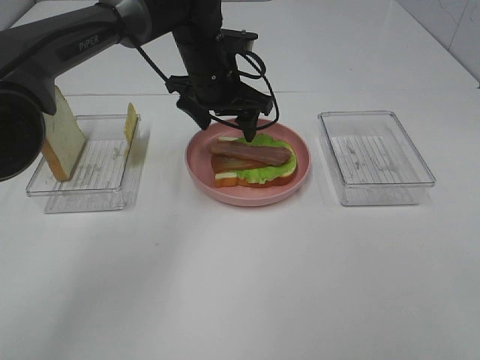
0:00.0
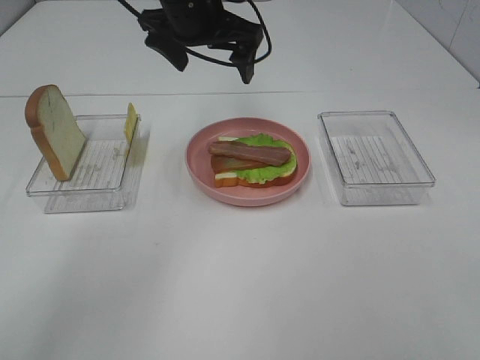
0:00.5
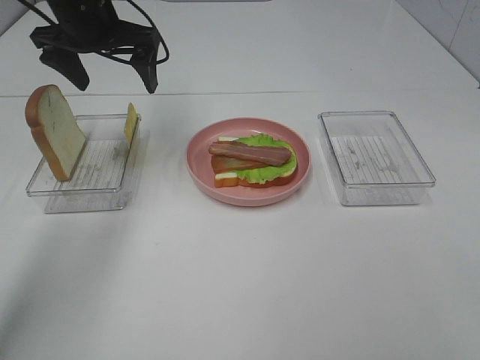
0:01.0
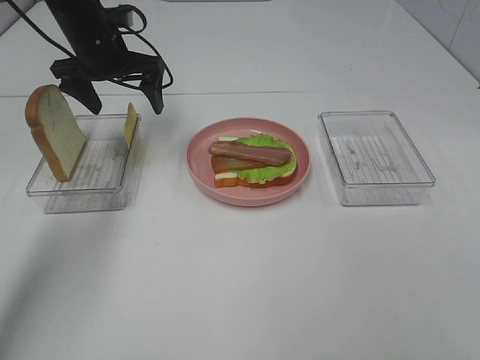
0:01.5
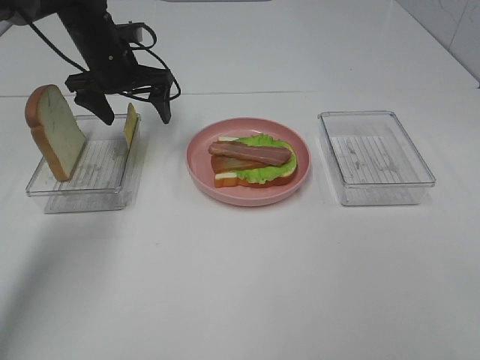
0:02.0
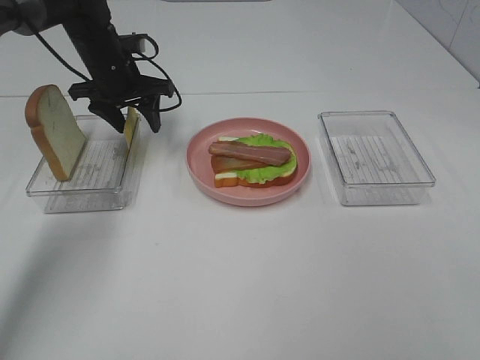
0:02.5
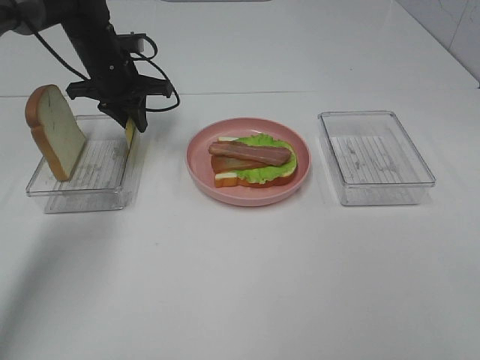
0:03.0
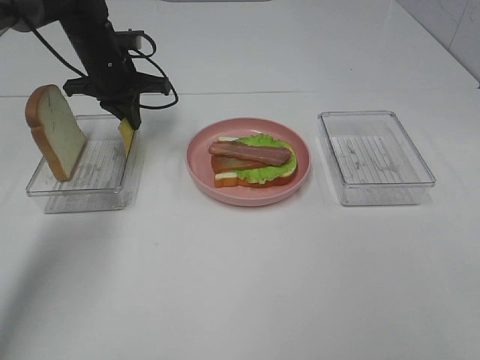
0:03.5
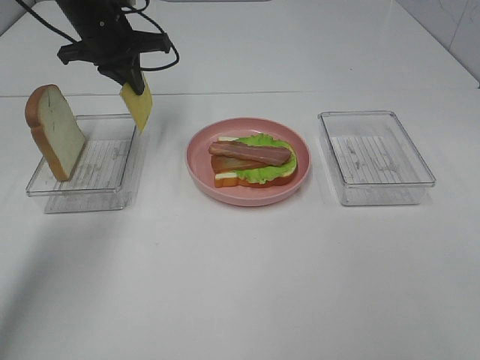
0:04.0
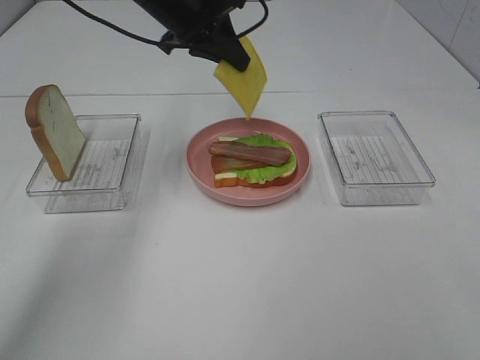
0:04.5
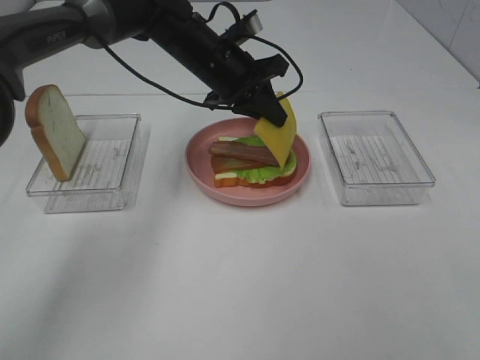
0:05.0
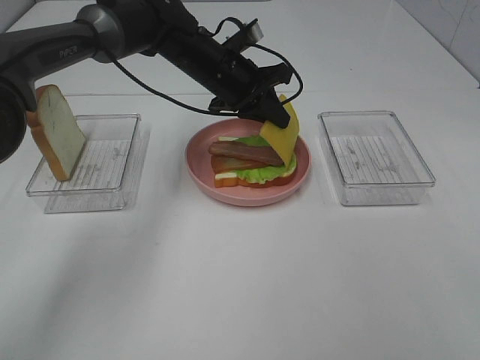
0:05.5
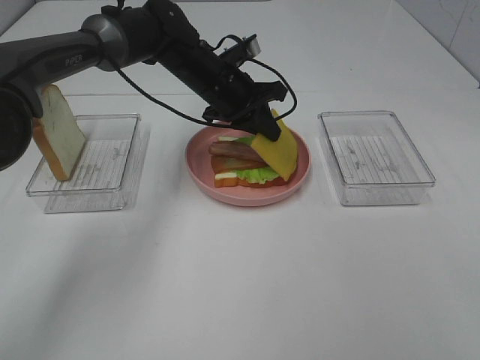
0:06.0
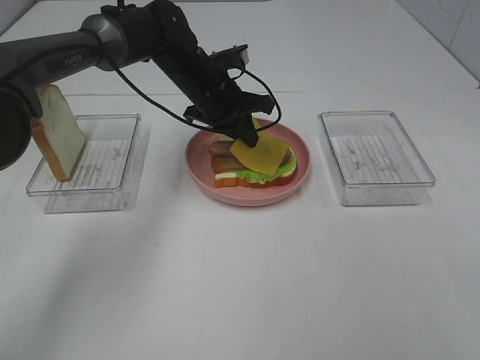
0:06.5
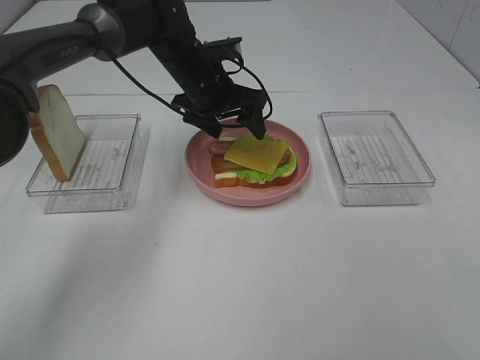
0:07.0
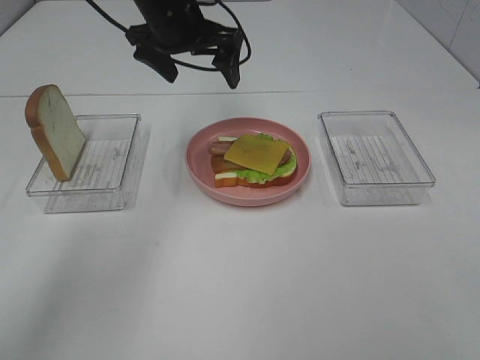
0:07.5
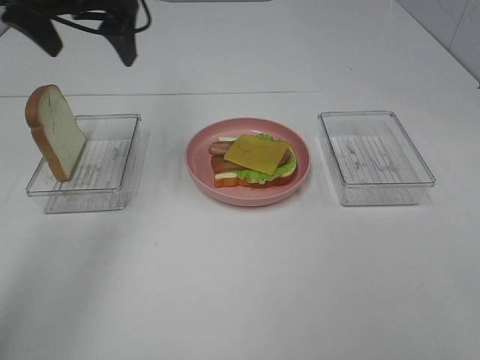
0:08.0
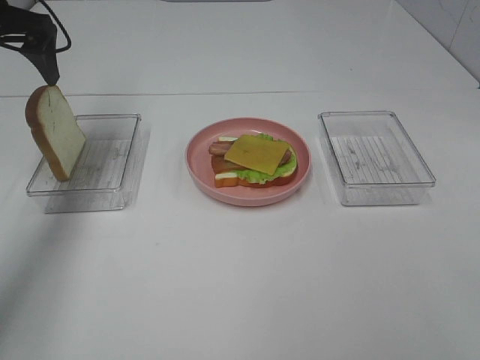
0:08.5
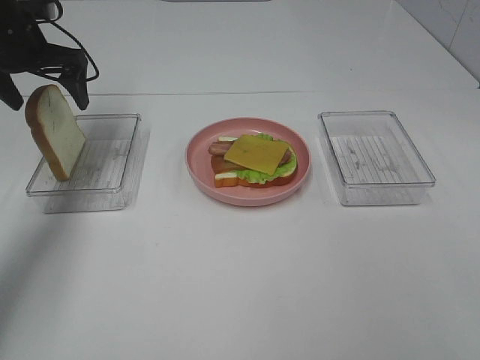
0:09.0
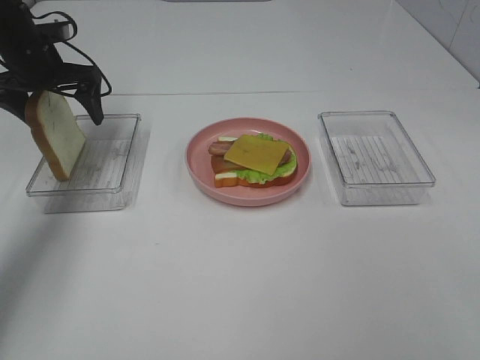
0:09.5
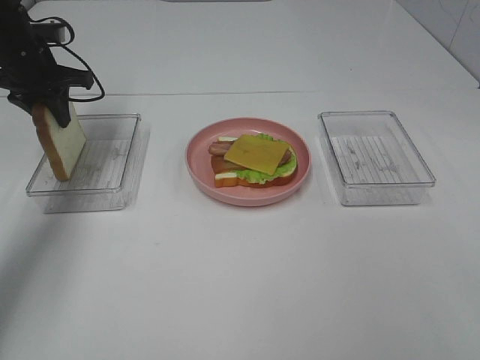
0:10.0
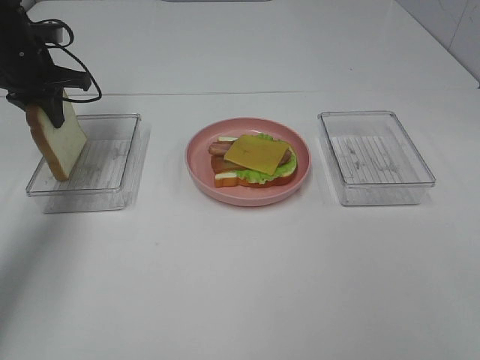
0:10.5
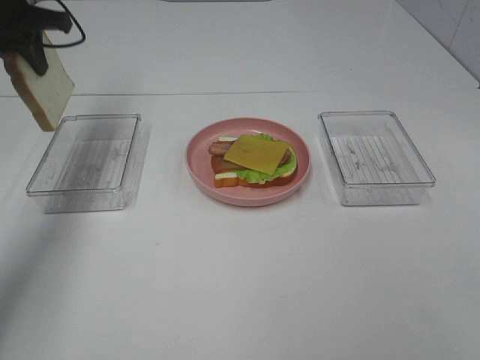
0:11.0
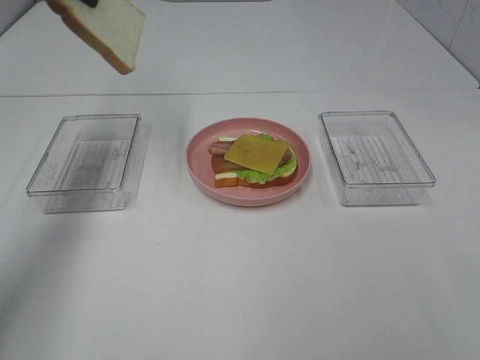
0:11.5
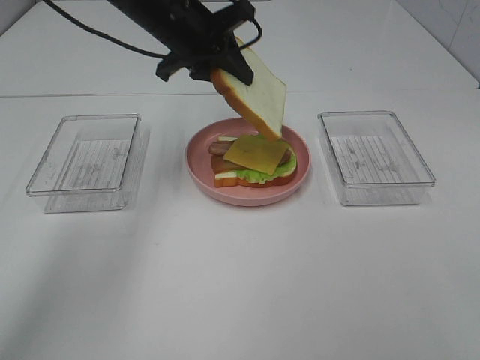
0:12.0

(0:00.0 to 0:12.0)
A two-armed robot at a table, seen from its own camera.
Task of the whole recording: Make sandwiches.
Step, 0:00.5 - 0:03.5: Left hand:grab the cheese slice.
Step, 0:04.0 - 0:07.0: Left hand:place the cheese slice on top of the bacon.
Step, 0:07.5 - 0:10.5: Left hand:grab the bread slice.
0:00.0 - 0:02.0: The left gripper shifts some 15 cm to the left.
0:02.0 - 0:04.0: The left gripper travels upward by roughly 5 cm, and closes its fingers.
0:04.0 - 0:06.0: The left gripper travels to the right and downward by about 15 cm.
0:06.0 - 0:08.0: The left gripper shifts some 25 cm upward and to the left, and opens its fingers.
0:08.0 - 0:10.0: The left gripper moves downward, to the left and forward, about 15 cm, and closes its fingers.
0:10.0 - 0:12.0: The left gripper moves to the right, approximately 20 cm.

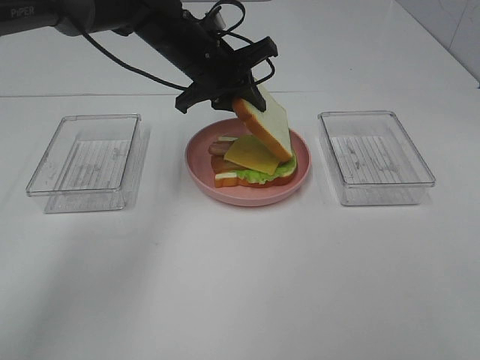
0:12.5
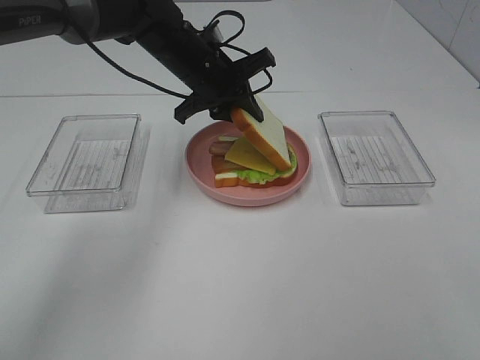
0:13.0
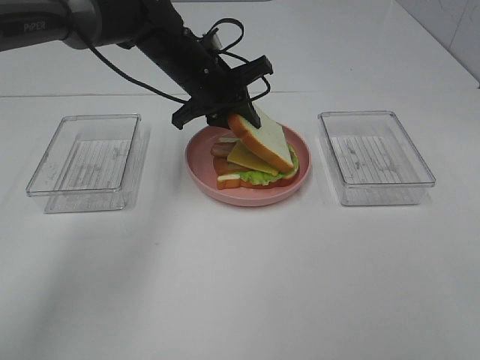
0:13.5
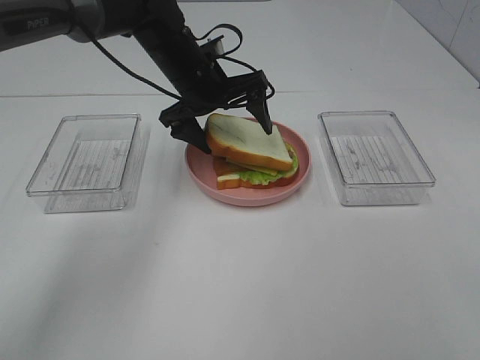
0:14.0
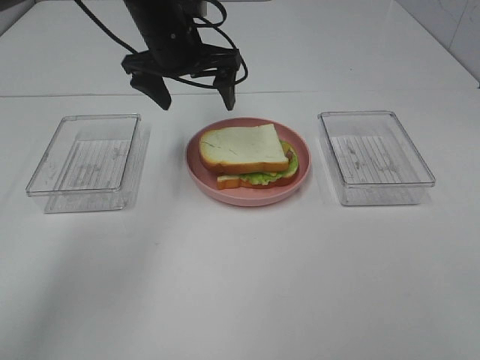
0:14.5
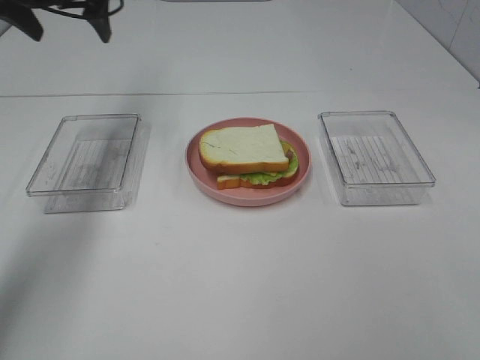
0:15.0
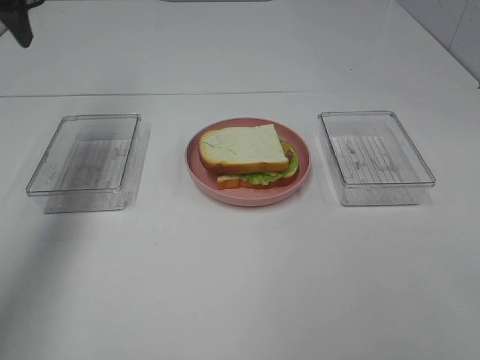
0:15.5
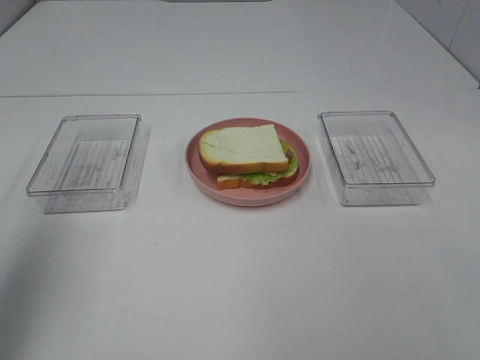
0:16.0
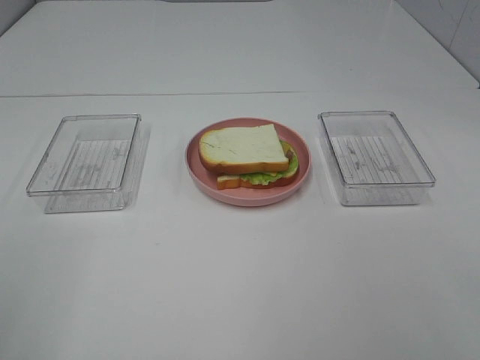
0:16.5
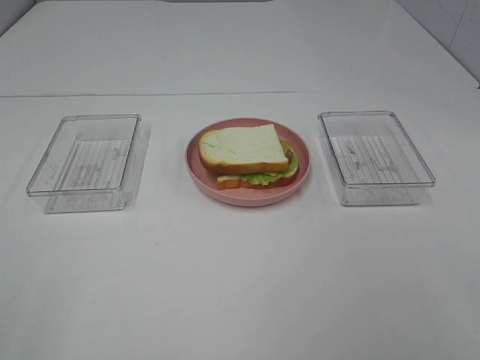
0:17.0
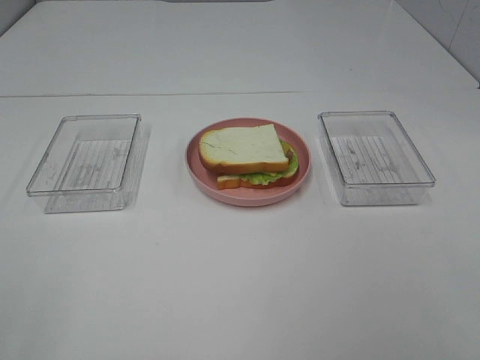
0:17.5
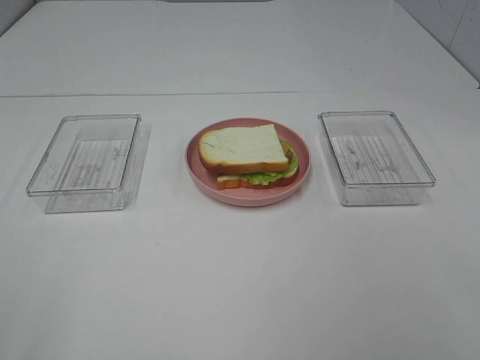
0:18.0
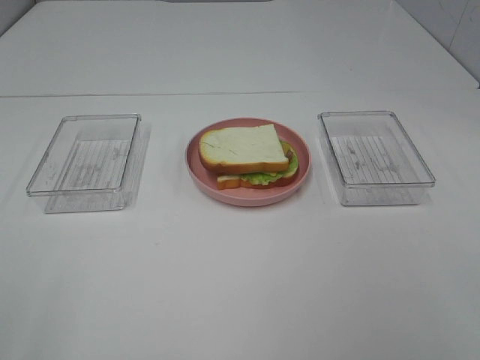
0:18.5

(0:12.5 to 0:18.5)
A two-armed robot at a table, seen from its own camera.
Task of the whole recording: Make sandwiches.
0:12.5 - 0:14.5: The left gripper opens its fingers.
0:14.5 - 0:16.5: The left gripper shifts roughly 50 cm backward and to the left.

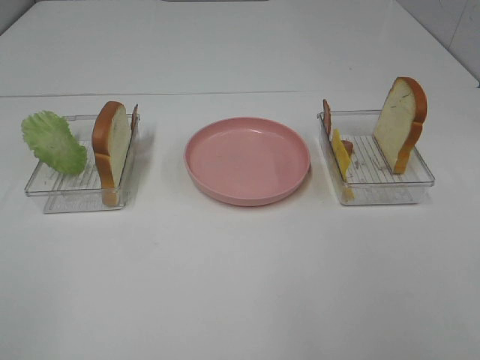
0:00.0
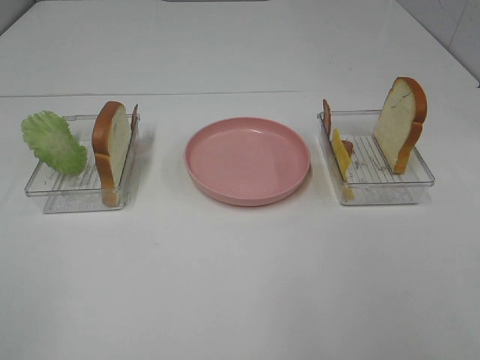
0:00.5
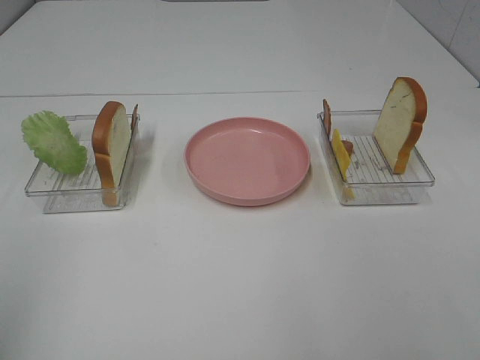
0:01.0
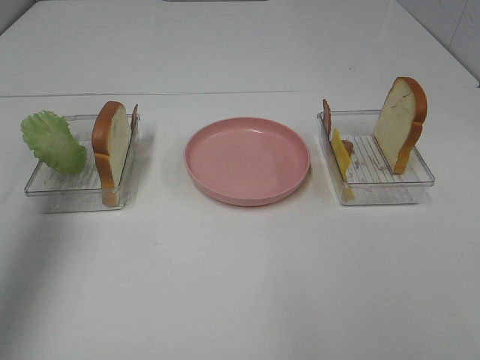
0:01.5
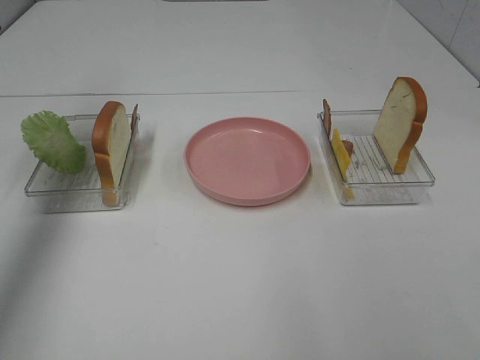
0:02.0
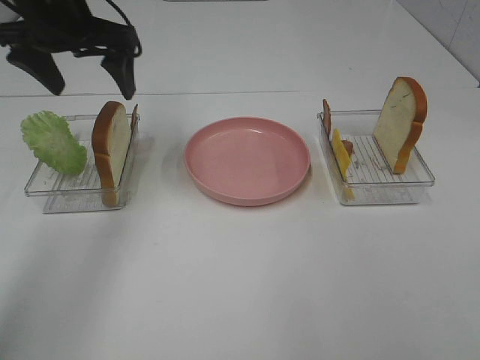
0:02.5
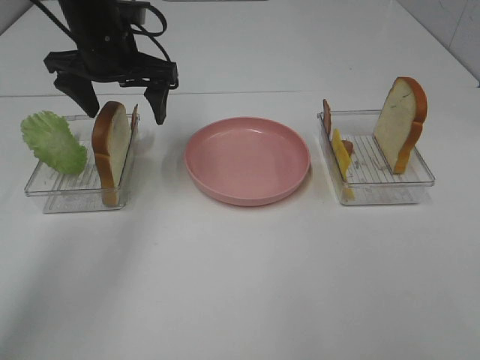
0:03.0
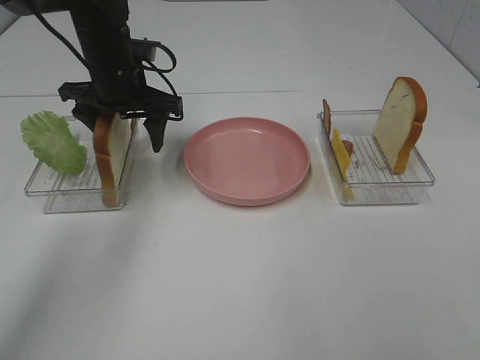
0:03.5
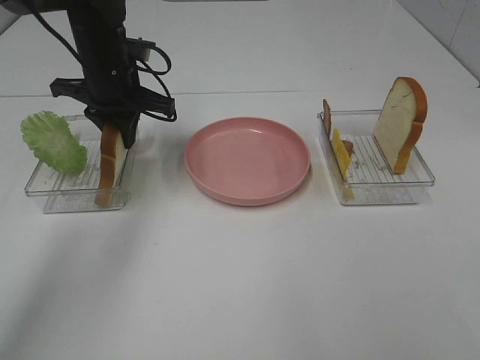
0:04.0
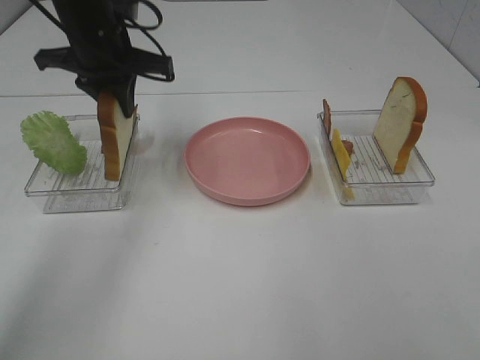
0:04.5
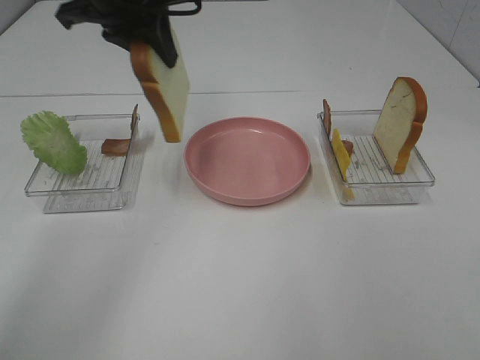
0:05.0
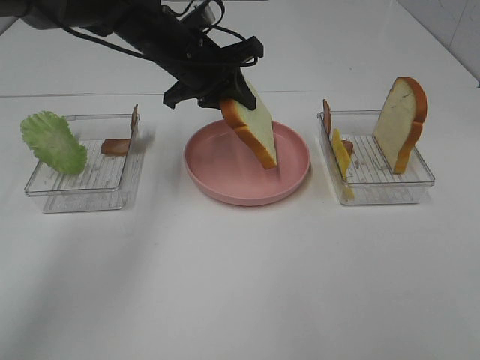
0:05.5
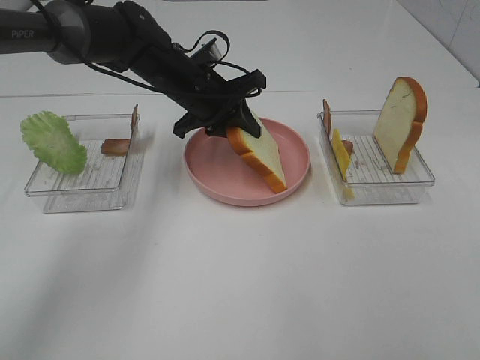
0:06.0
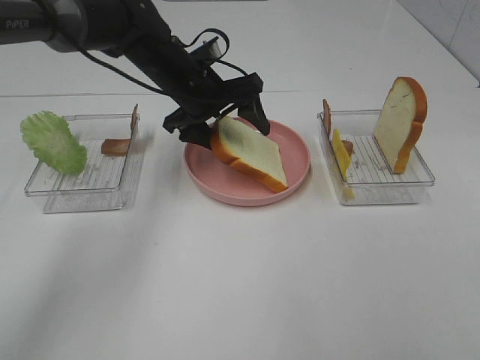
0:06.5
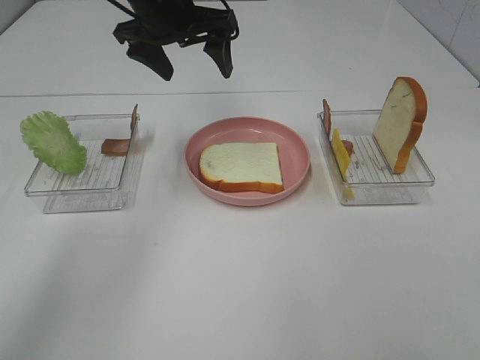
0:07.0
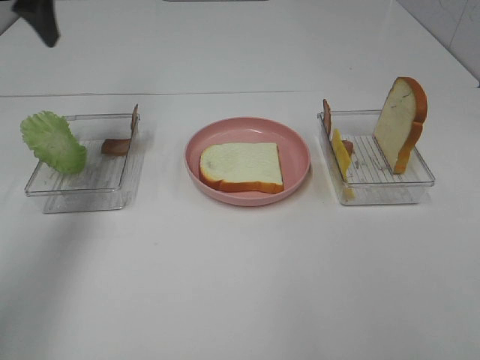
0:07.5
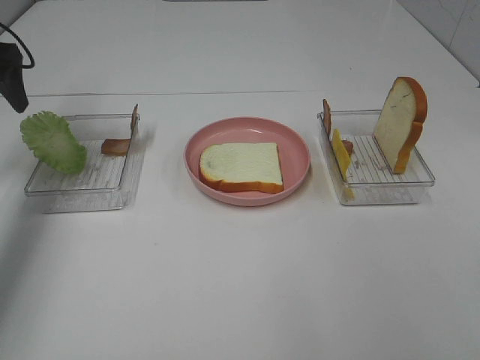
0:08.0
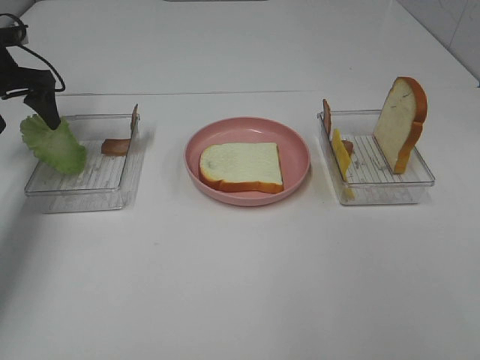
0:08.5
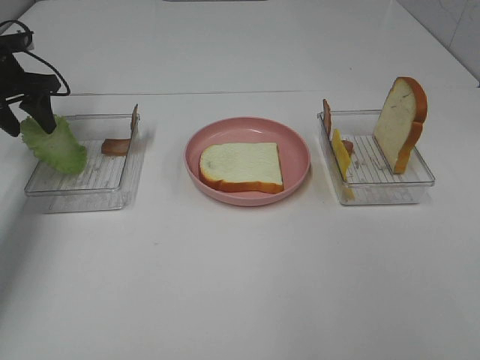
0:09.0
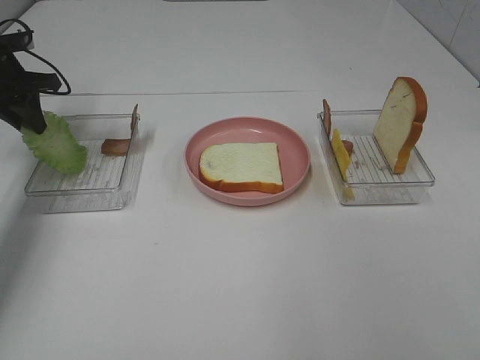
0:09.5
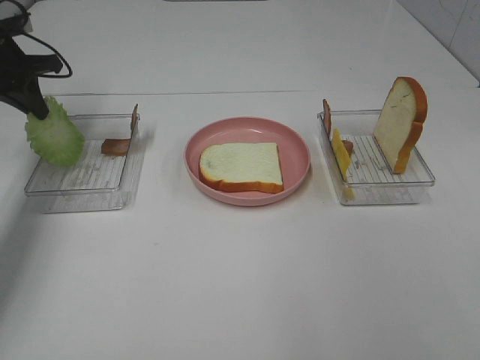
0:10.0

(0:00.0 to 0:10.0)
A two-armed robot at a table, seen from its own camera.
Task of the whole recording: Make sandwiches.
Step, 0:00.0 - 0:04.0: Left hand:grab the bread slice.
Step, 0:04.5 - 0:06.5: Left hand:place the bread slice on the plate.
Step, 0:07.0 - 0:09.5: Left hand:grab the lettuce slice.
0:00.0 - 0:02.0: The left gripper moves forward, approximately 40 cm.
0:02.0 - 0:04.0: The left gripper moves to the right and downward, some 25 cm, and closes.
0:04.0 - 0:06.0: The left gripper moves to the right, approximately 10 cm, and reaches approximately 10 cm upward, then returns.
0:06.0 - 0:08.0: The left gripper heads to the left, covering roughly 30 cm, and opens its fingers.
0:08.0 - 0:10.0: The left gripper moves some 5 cm, and closes up.
